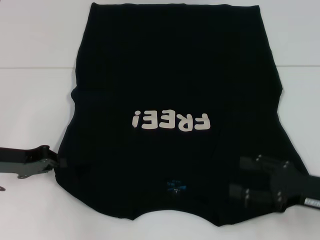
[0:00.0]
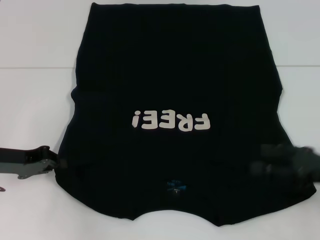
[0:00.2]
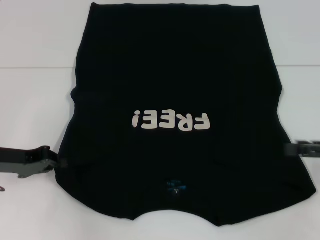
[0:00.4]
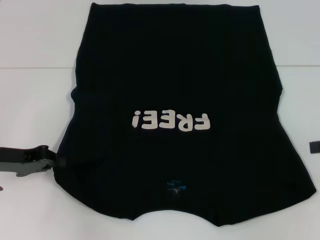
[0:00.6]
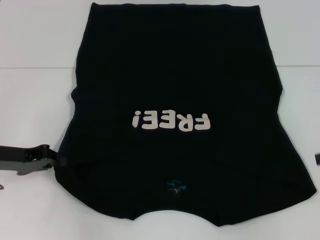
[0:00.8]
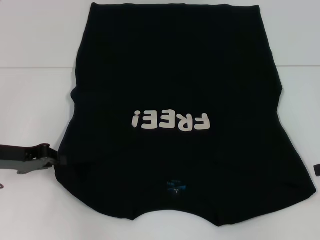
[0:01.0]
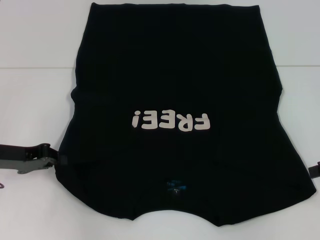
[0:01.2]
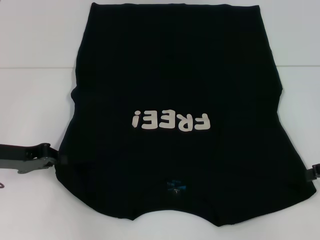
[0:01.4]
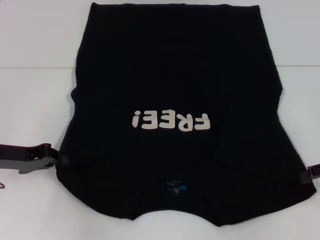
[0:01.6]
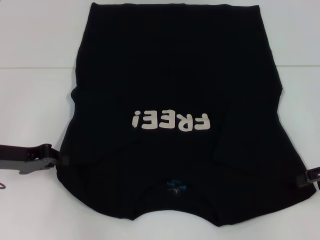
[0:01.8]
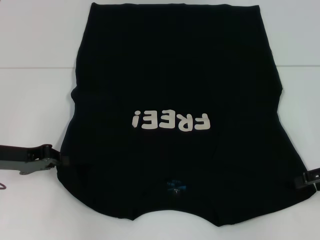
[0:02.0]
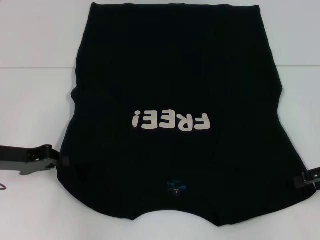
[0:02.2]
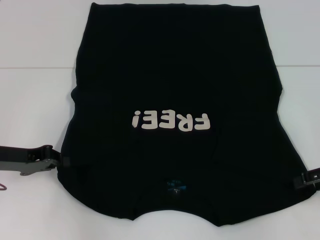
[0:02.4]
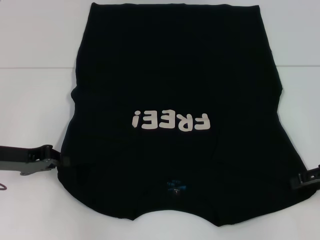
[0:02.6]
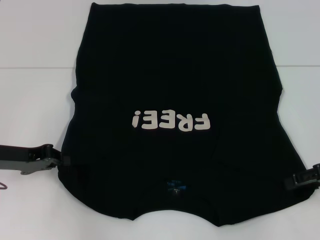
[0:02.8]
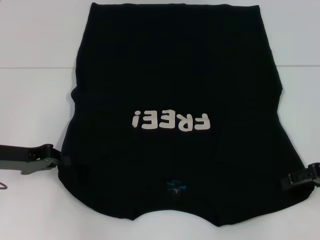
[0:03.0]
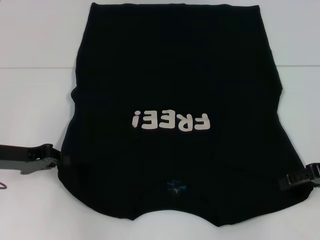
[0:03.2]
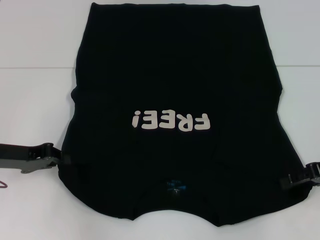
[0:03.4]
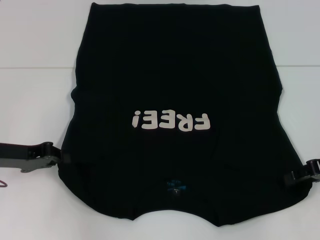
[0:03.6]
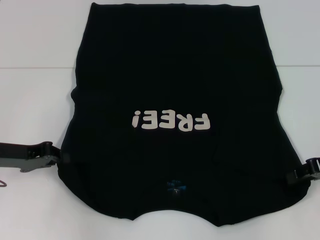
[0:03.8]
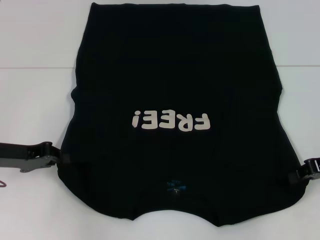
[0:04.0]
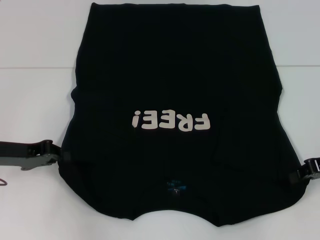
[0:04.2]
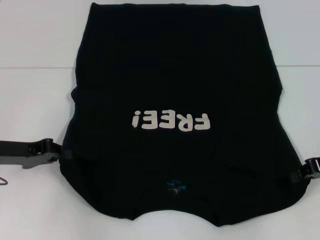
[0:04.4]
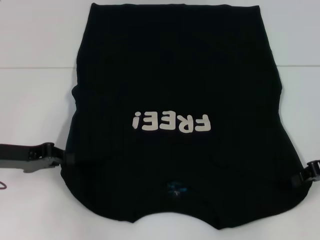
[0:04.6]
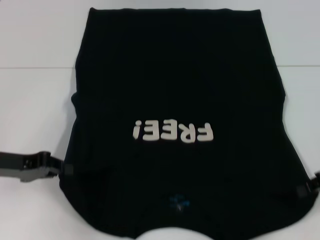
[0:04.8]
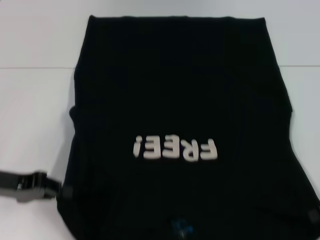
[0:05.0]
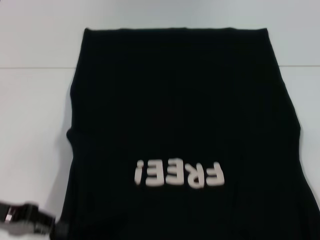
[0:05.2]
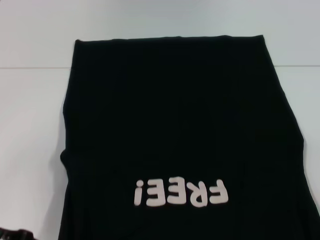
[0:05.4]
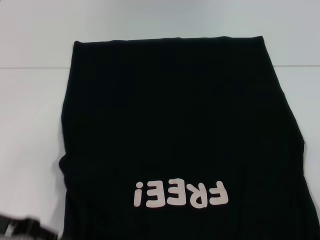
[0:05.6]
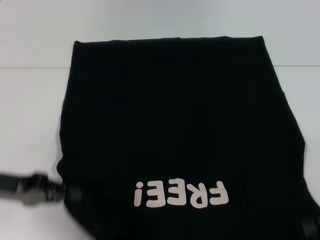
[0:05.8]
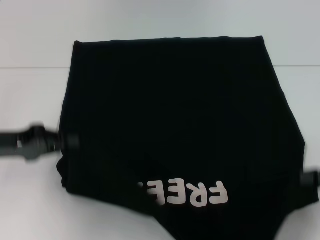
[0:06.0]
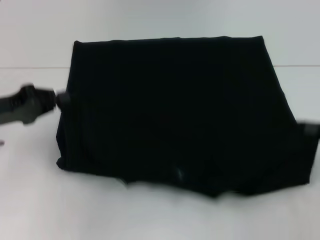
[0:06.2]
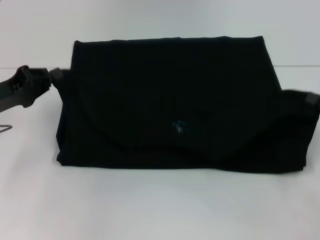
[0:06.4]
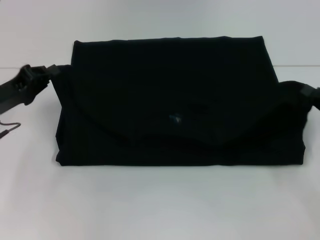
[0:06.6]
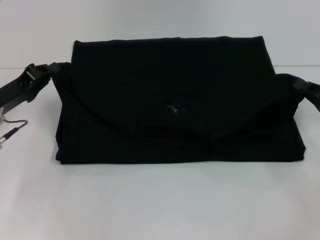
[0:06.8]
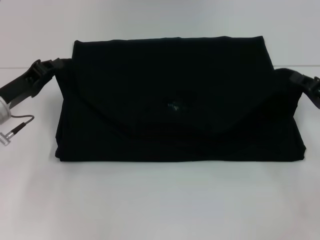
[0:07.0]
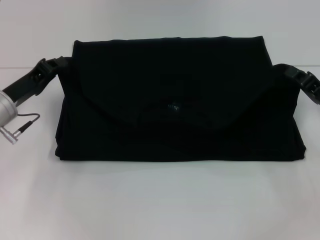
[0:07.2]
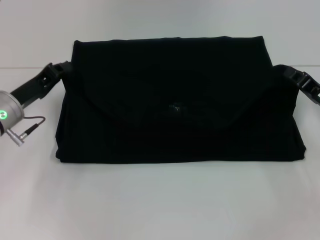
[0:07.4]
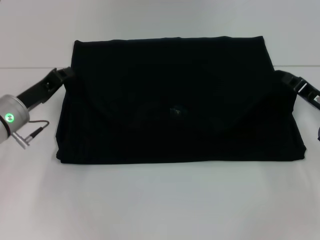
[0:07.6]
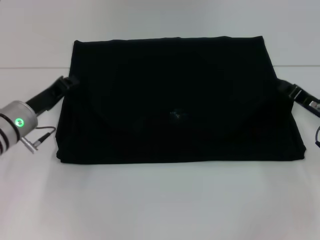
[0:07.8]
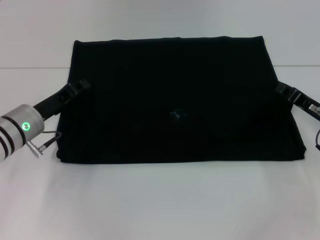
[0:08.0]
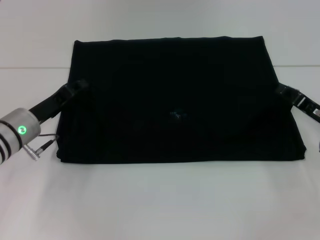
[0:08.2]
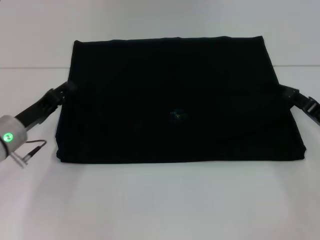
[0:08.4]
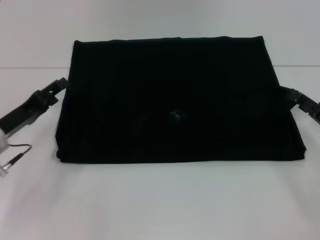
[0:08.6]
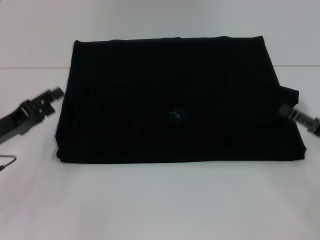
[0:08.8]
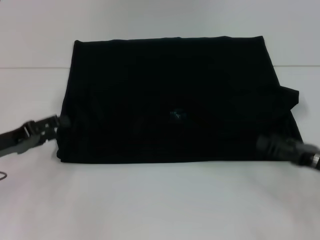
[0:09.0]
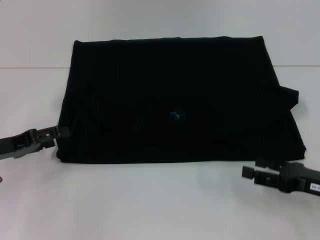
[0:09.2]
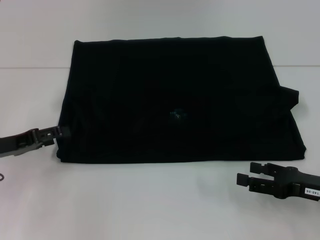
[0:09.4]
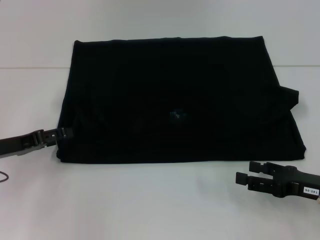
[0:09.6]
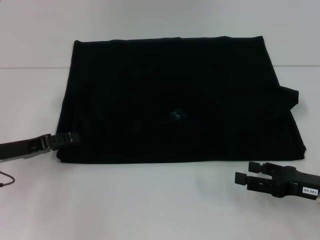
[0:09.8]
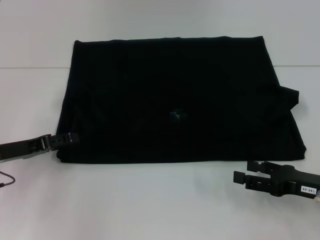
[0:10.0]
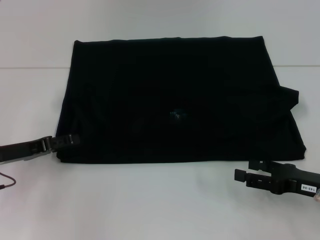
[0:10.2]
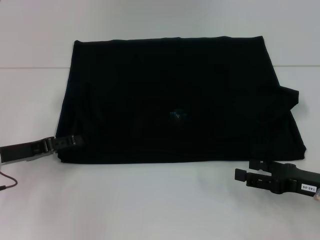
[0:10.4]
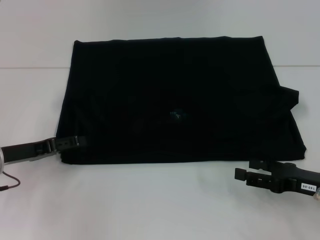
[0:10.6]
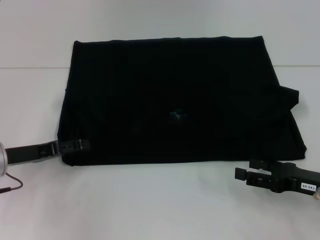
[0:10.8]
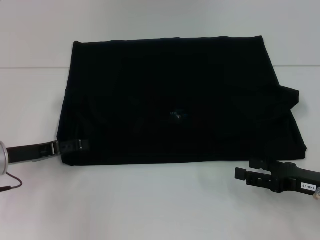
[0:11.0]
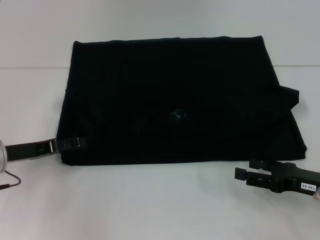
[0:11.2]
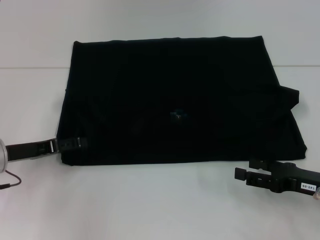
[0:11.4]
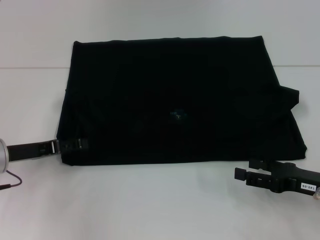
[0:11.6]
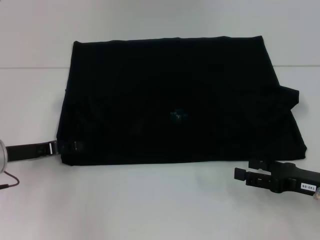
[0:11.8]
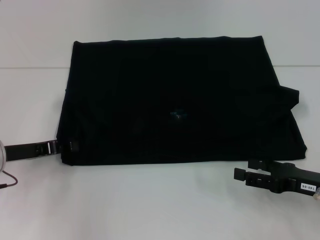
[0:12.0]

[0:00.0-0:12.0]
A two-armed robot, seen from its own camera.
Step, 0:00.8 to 0:04.2: Grab the bottom right corner with your right hand.
Step, 0:04.4 to 0:08.4: Fold the clothes with your left hand.
Step, 0:04.4 to 0:08.4: Fold the clothes with your right hand.
0:00.0 to 0:01.6: The right gripper shifts roughly 15 cm forward, to the right and upward.
0:01.6 to 0:03.0: The grippers make only small movements.
0:03.0 to 0:04.4: The right gripper closes up.
0:04.4 to 0:06.0: The left gripper goes backward and returns, about 10 cm each way; the right gripper goes approximately 5 cm backward.
0:06.0 to 0:07.6: The left gripper shifts approximately 10 cm forward, to the right and downward, while the right gripper goes approximately 10 cm forward, to the left and downward.
0:07.6 to 0:09.0: The left gripper shifts about 10 cm backward and to the left, and opens up. Meanwhile the right gripper travels backward by roughly 10 cm, and opens its fingers.
0:09.0 to 0:10.4: There are only small adjustments of the grippers.
0:10.4 to 0:12.0: The grippers stay close to where they were, moving slightly.

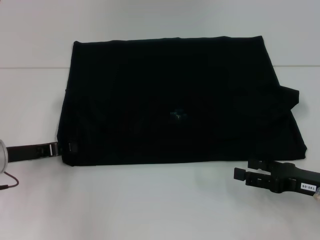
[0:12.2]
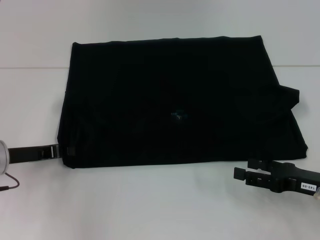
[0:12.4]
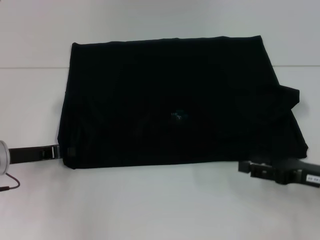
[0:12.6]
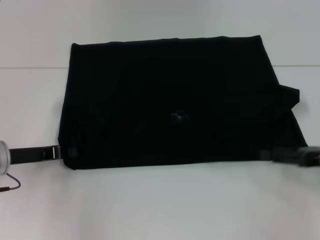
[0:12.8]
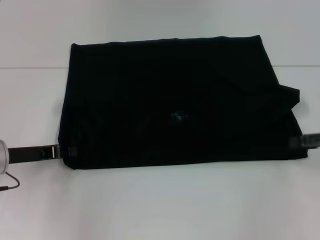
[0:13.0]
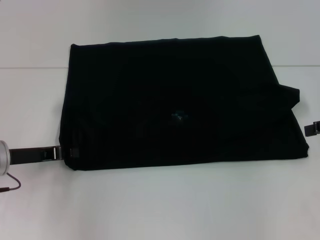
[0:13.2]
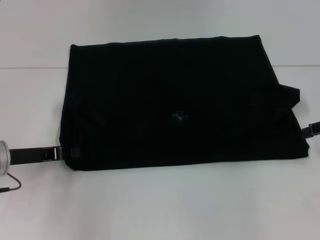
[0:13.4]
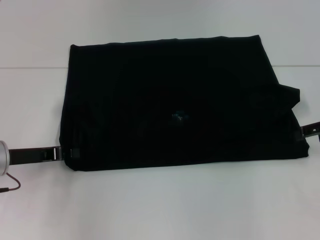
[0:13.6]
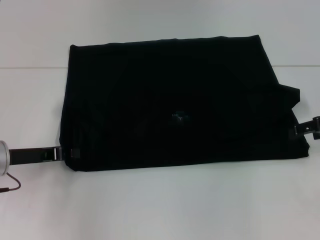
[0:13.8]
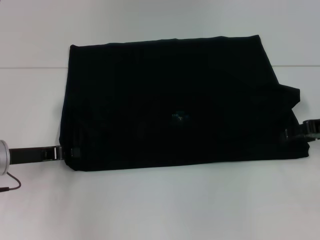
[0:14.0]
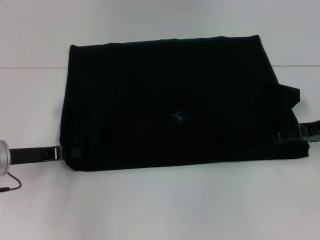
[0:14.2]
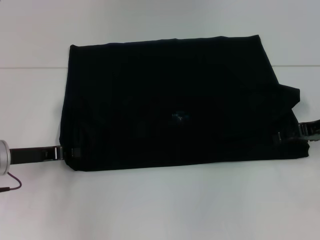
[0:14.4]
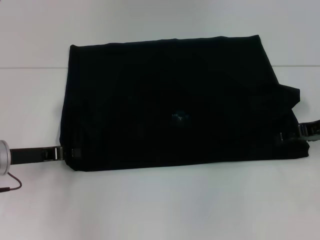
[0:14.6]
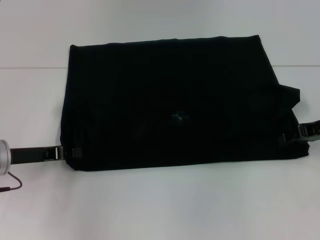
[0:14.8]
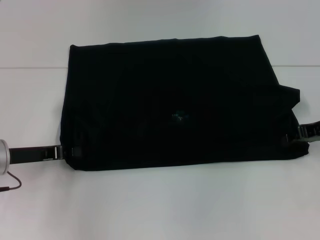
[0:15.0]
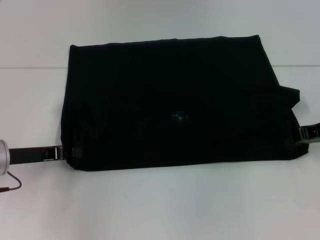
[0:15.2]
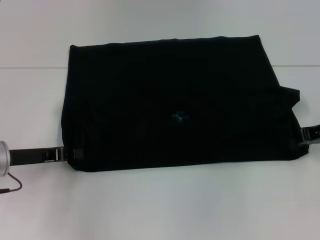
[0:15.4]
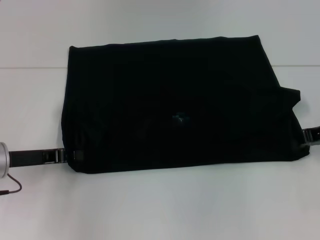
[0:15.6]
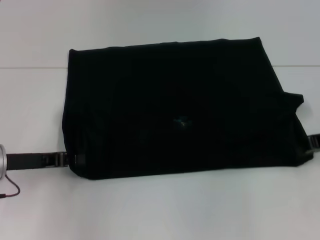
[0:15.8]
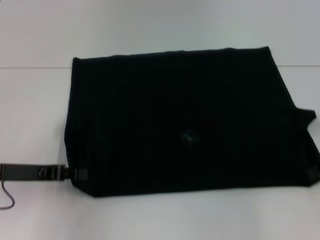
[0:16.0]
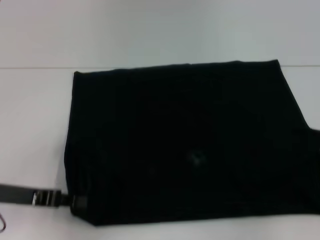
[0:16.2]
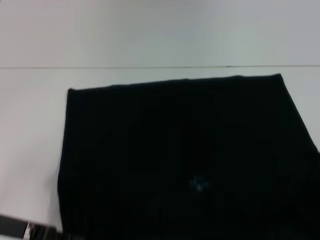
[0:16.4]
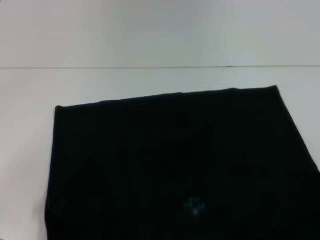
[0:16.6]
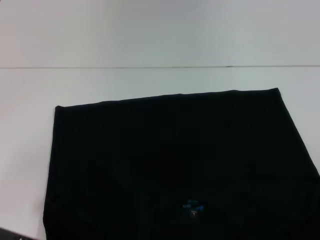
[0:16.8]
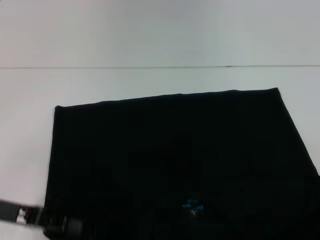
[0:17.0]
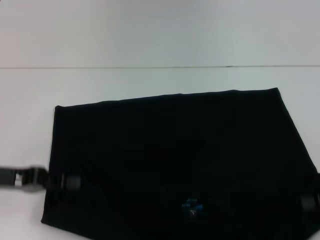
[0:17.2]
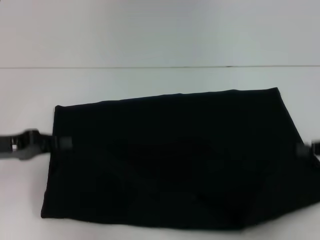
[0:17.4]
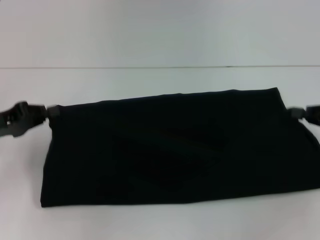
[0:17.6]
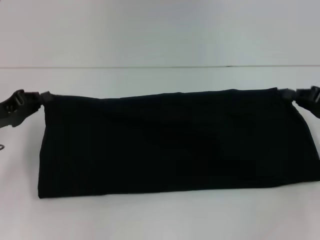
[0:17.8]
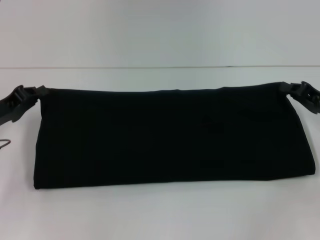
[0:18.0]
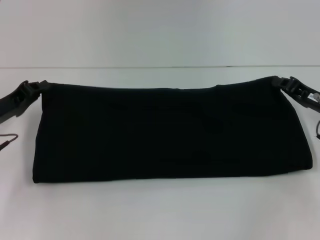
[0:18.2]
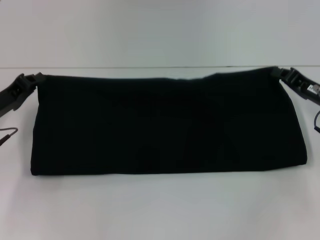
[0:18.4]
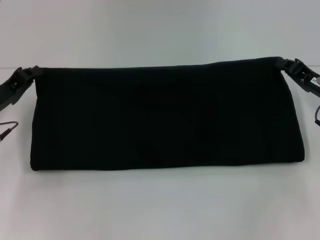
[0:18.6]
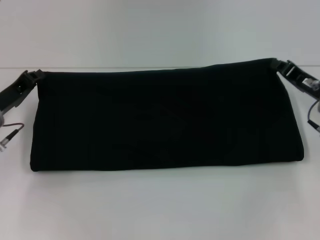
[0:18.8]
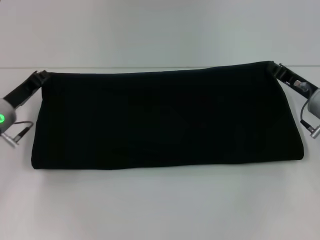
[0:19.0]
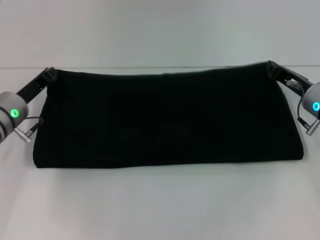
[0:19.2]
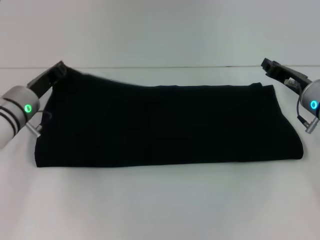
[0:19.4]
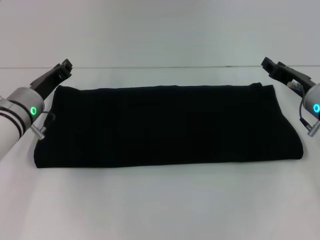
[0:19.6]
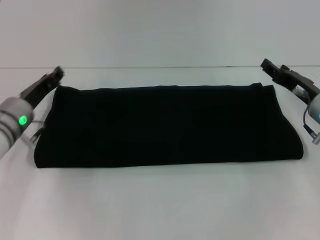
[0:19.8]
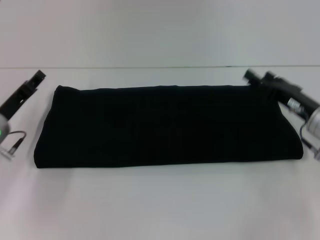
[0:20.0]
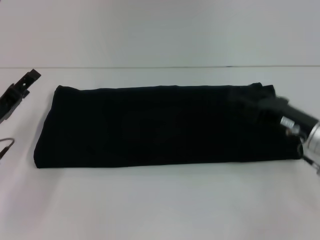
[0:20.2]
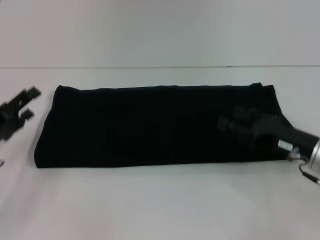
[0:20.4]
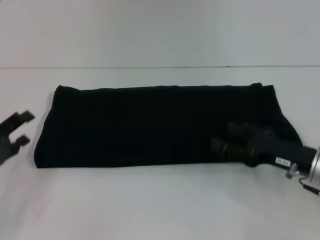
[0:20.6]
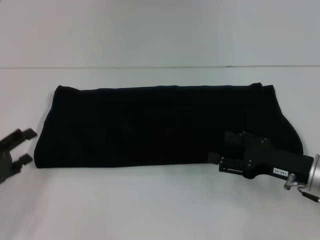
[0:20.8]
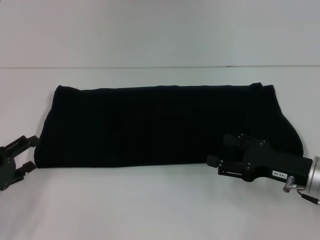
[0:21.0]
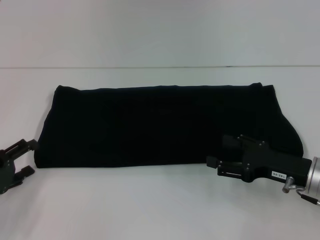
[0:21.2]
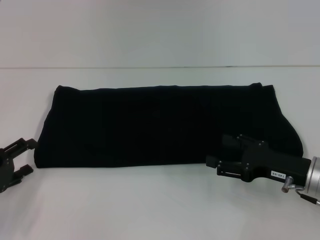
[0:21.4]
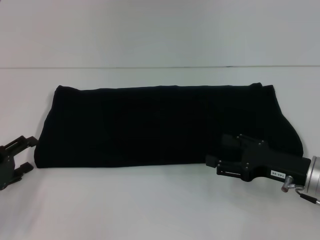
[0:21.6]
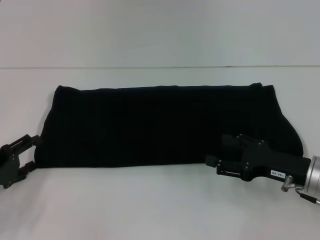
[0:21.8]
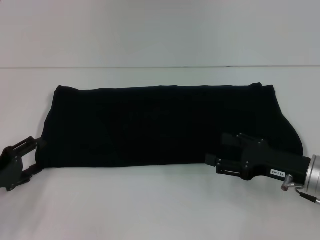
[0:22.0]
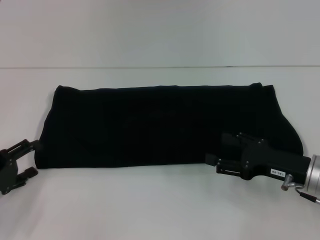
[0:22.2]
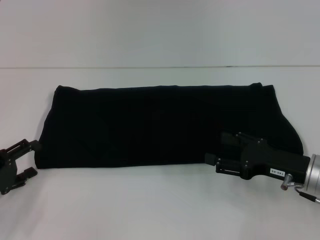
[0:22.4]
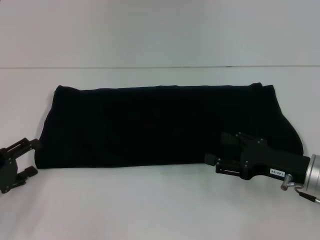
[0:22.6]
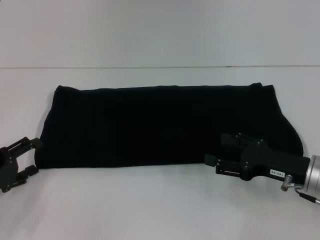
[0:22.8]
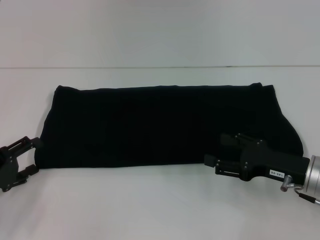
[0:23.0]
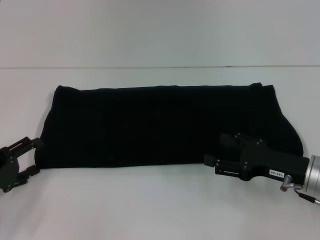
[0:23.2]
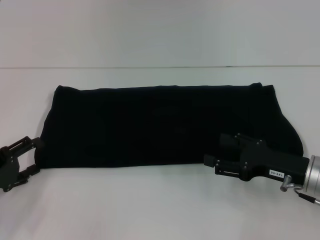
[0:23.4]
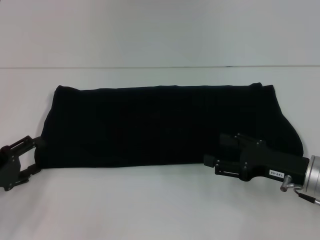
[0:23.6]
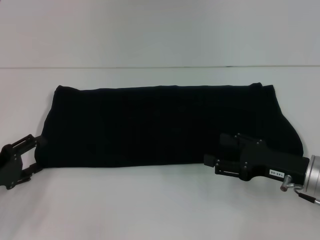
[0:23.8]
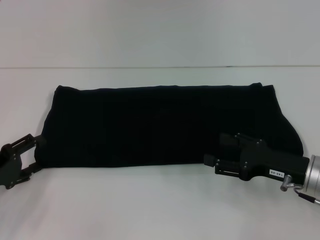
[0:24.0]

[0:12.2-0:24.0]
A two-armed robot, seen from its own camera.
Step, 0:12.2 to 0:16.8: Pull the clothes with your left hand.
Step, 0:12.2 to 0:16.8: Pull the clothes with your right hand.
Step, 0:17.0 to 0:19.4: Fold the clothes with your right hand.
0:12.2 to 0:13.6: The left gripper closes. Meanwhile the right gripper moves upward, forward and to the right, approximately 15 cm.
0:15.2 to 0:16.6: The two grippers go some 10 cm backward.
0:16.6 to 0:18.2: The left gripper heads forward, covering about 10 cm. The right gripper travels forward and to the left by roughly 10 cm.
0:18.2 to 0:19.6: The right gripper changes place by roughly 5 cm; the left gripper travels to the right and forward by some 10 cm.
0:19.6 to 0:21.0: The right gripper travels backward by some 10 cm, and opens; the left gripper travels backward and to the left by approximately 20 cm, and opens its fingers.
0:21.0 to 0:22.6: The grippers make only small movements.
0:22.6 to 0:24.0: The two grippers keep their place.
